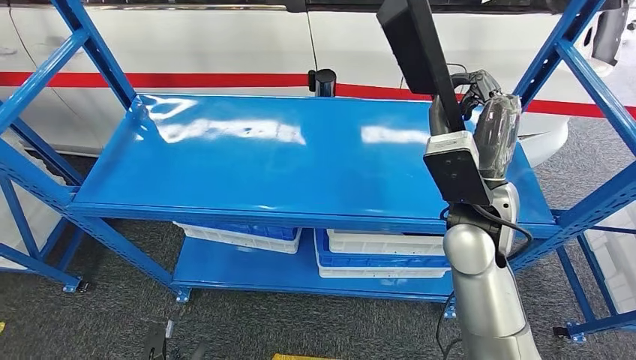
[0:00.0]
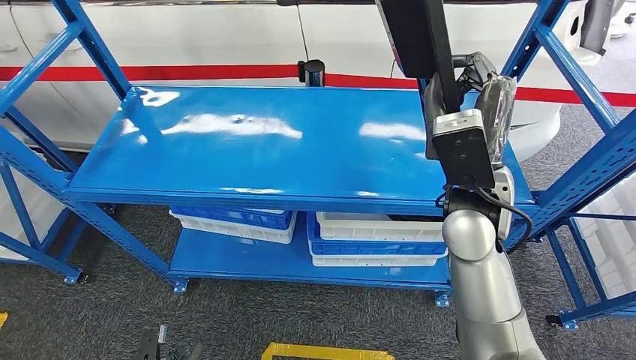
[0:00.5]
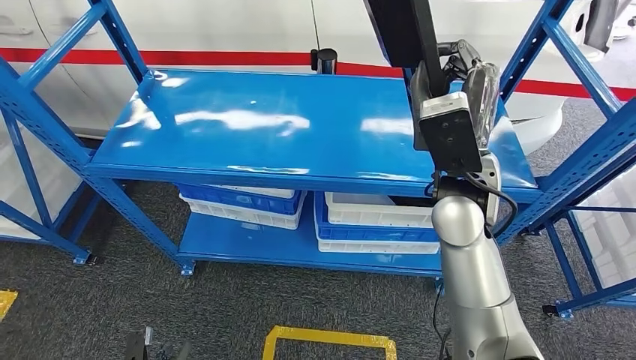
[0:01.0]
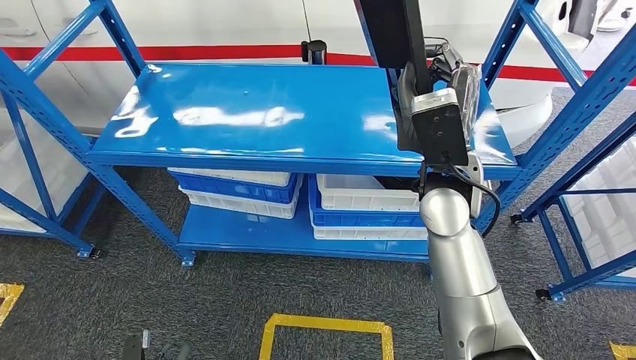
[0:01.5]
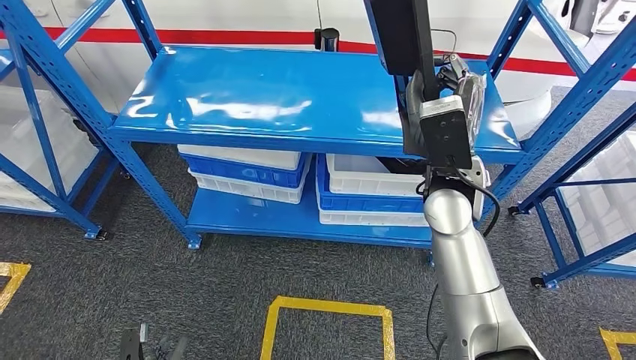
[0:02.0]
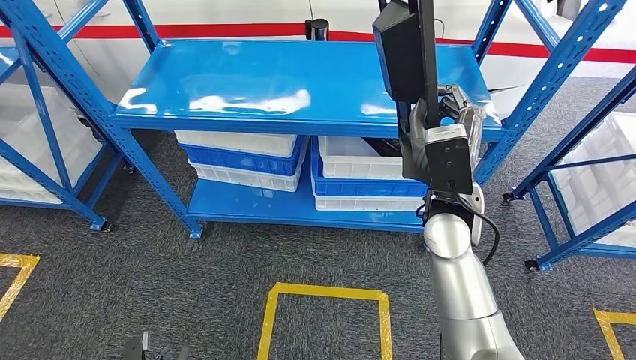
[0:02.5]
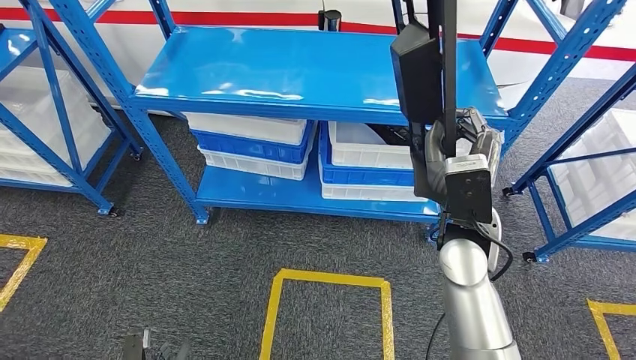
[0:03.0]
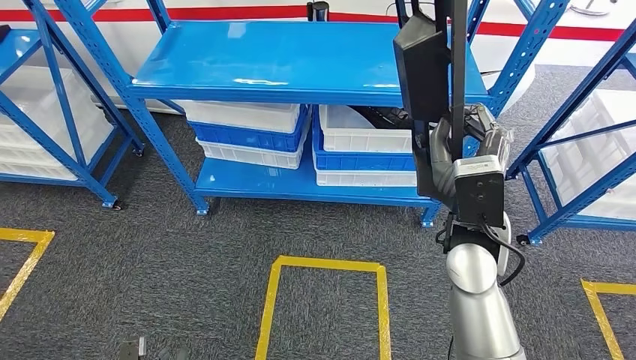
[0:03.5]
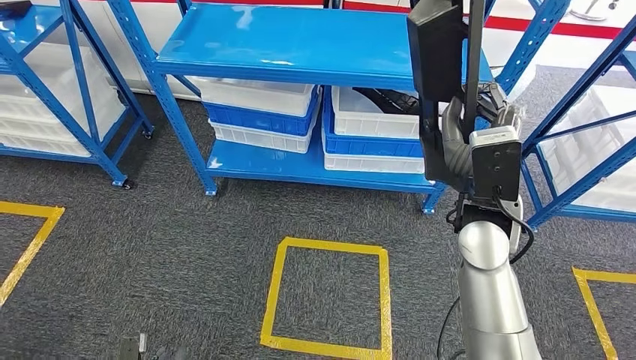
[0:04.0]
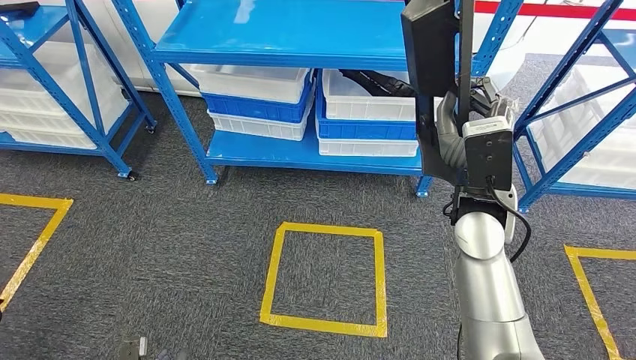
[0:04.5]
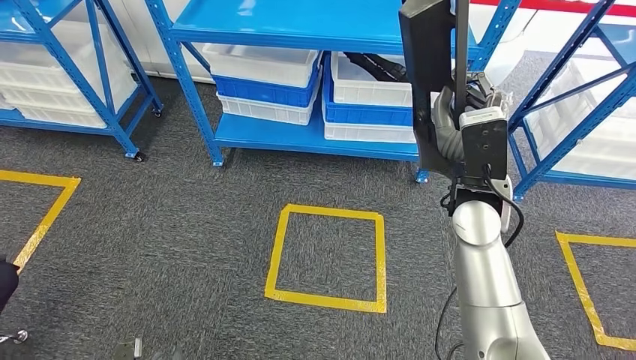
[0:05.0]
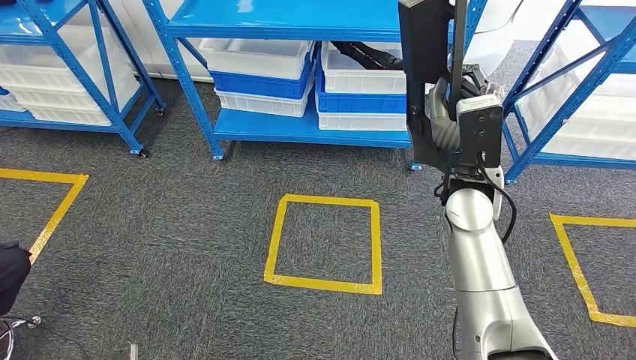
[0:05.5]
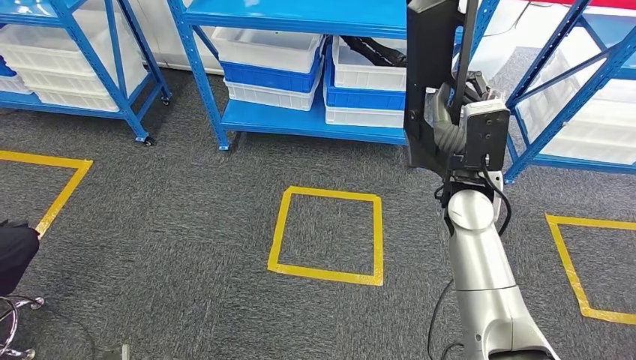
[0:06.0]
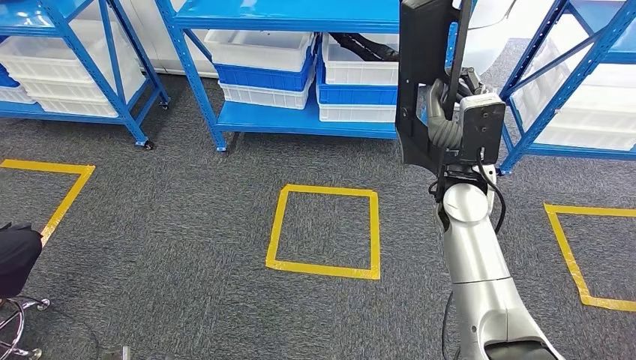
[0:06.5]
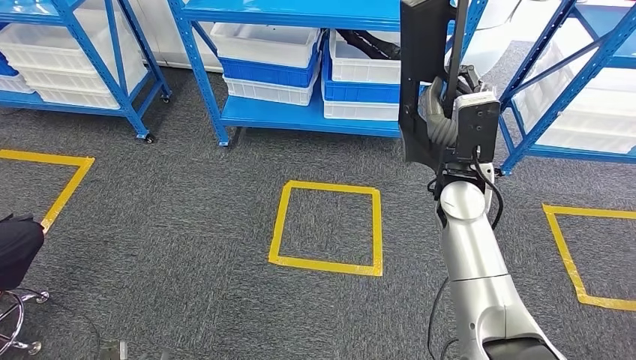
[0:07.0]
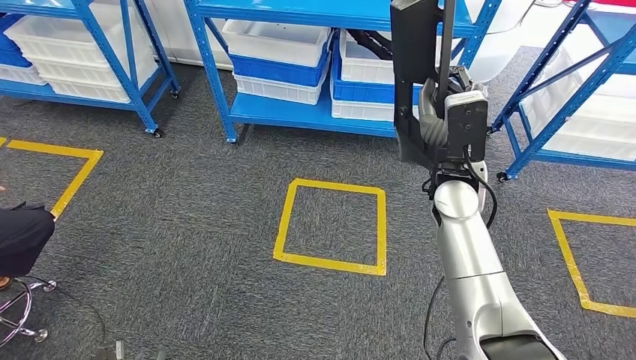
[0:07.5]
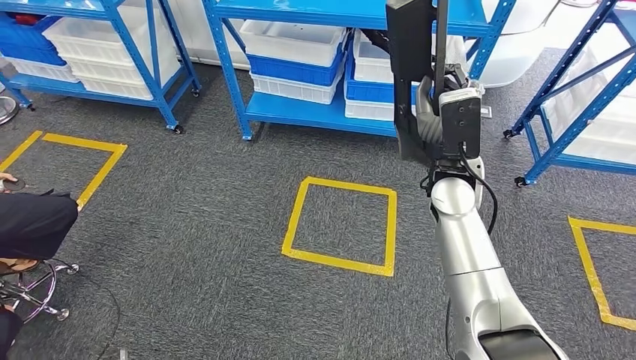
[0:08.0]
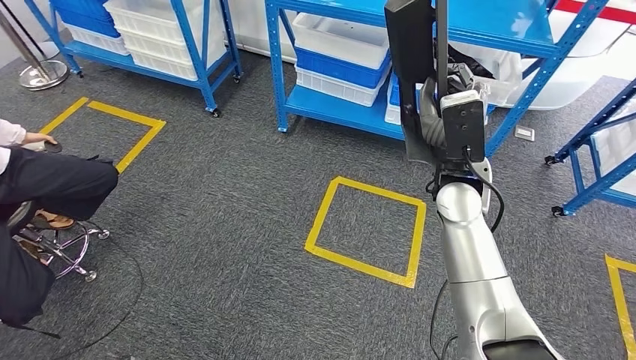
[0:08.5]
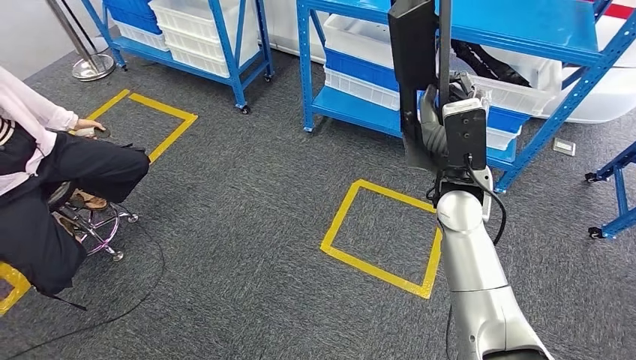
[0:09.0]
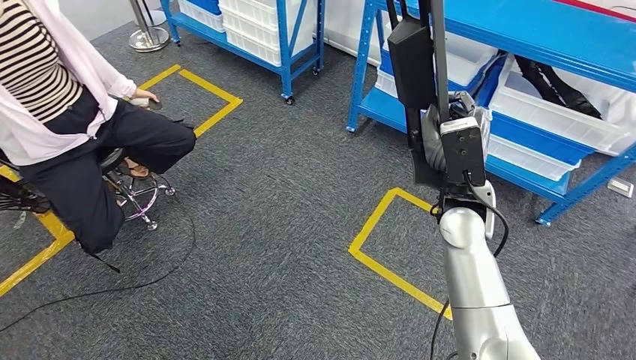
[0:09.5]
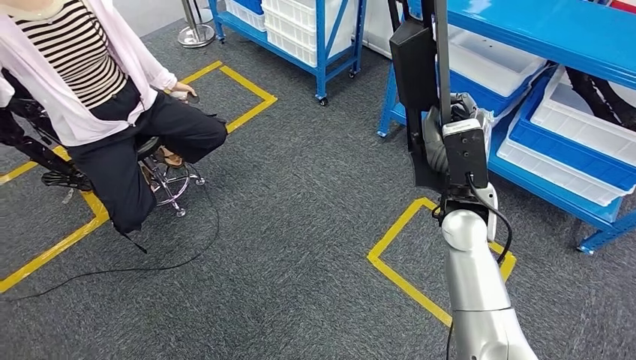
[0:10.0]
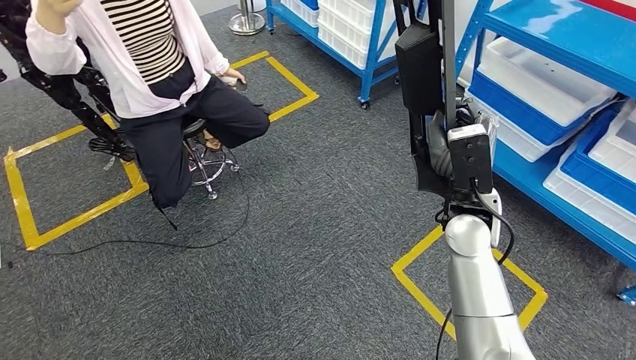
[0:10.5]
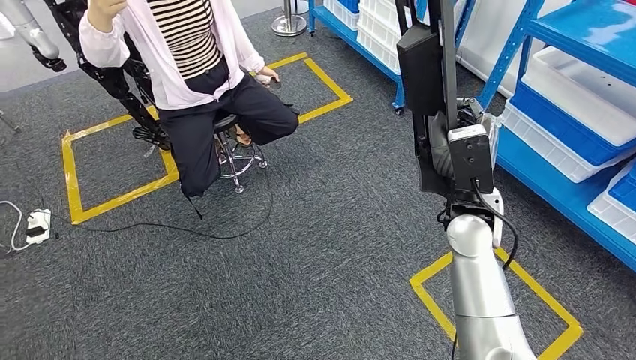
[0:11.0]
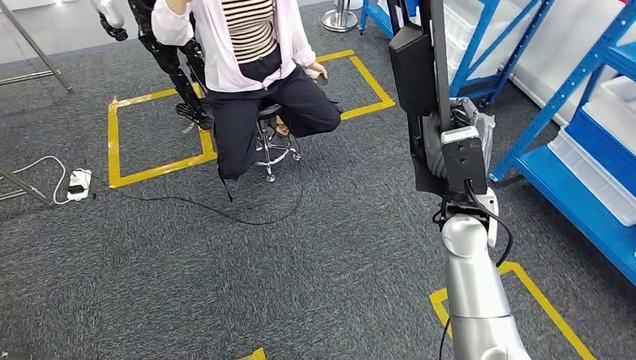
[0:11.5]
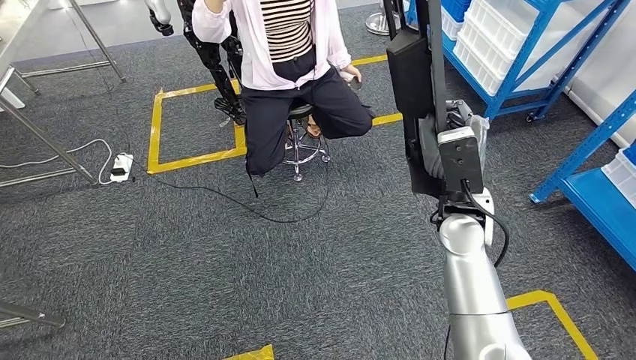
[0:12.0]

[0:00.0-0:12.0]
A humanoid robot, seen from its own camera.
Step, 0:00.0 to 0:04.0: Pick up the large material from the shelf.

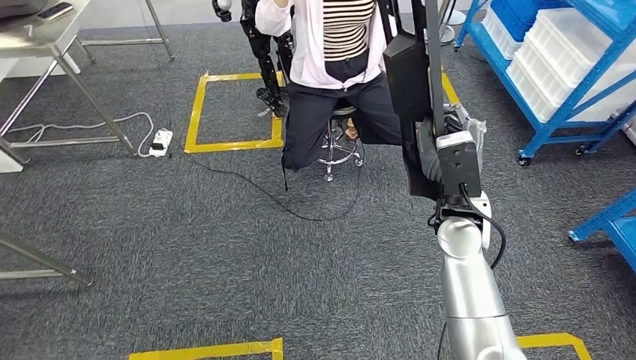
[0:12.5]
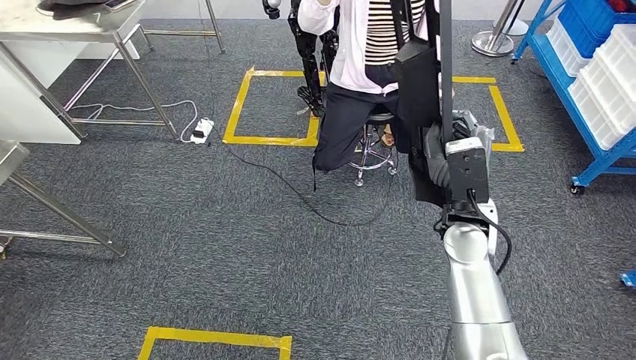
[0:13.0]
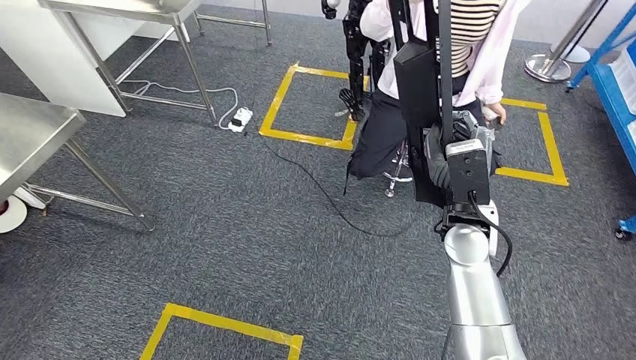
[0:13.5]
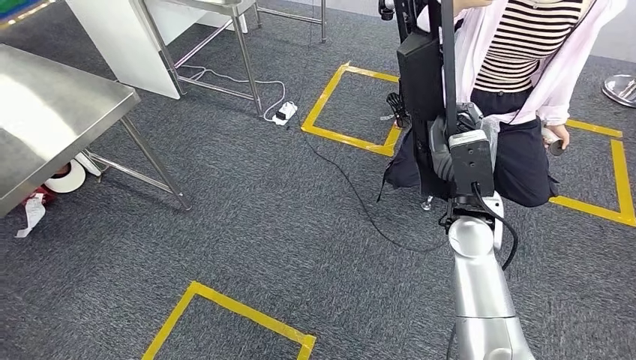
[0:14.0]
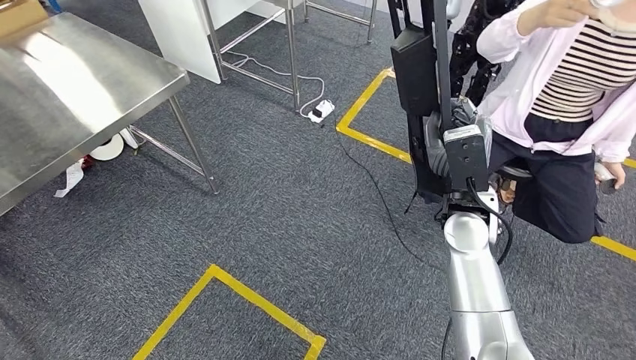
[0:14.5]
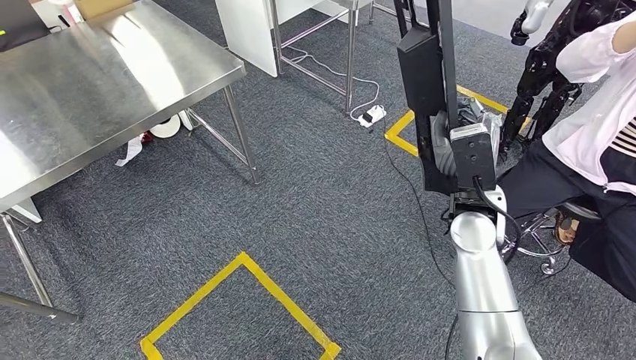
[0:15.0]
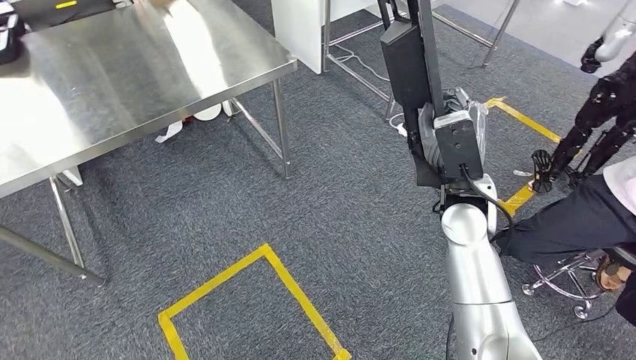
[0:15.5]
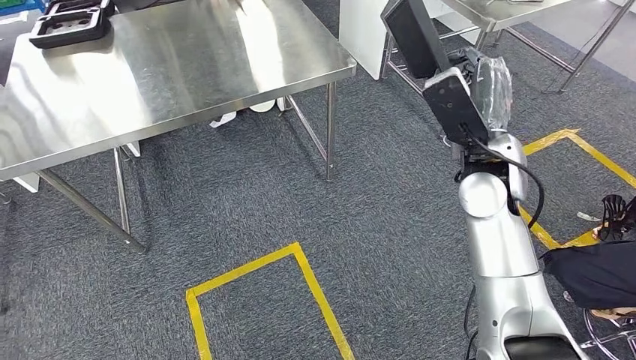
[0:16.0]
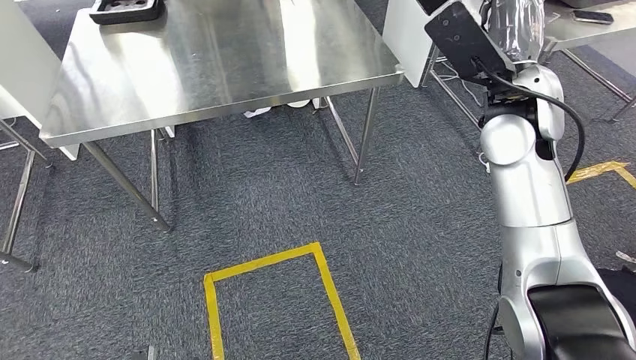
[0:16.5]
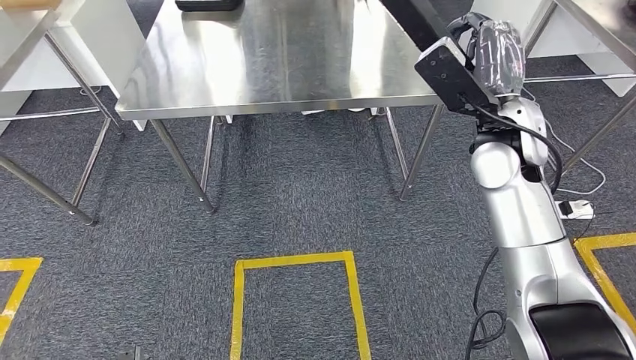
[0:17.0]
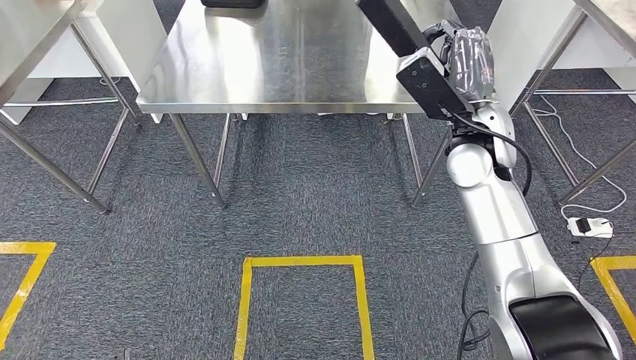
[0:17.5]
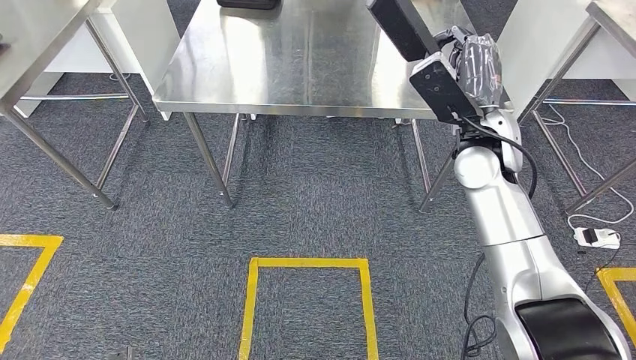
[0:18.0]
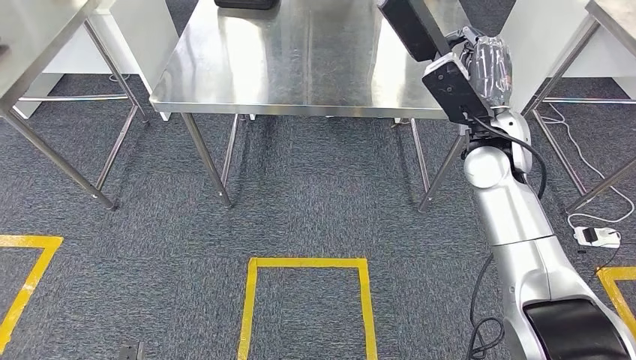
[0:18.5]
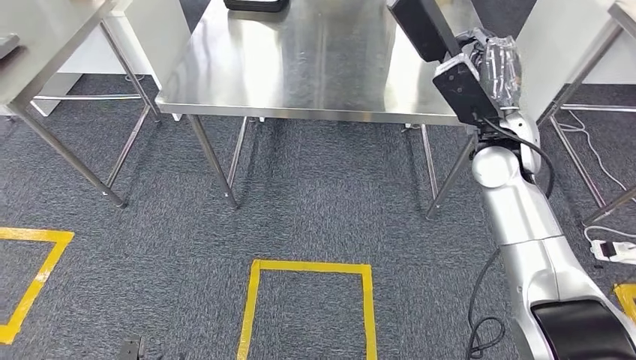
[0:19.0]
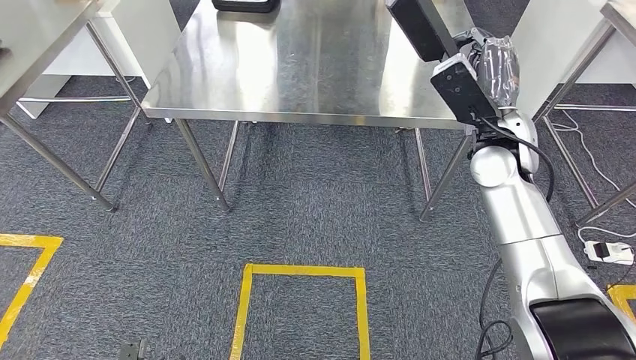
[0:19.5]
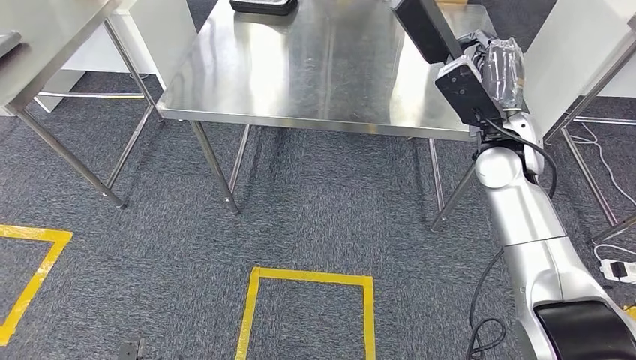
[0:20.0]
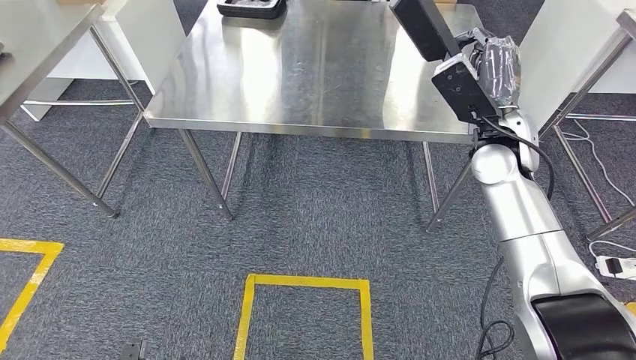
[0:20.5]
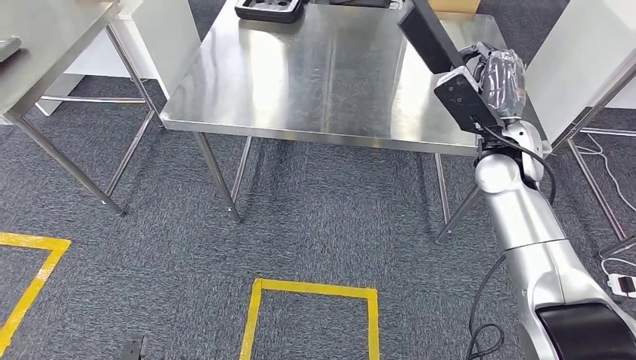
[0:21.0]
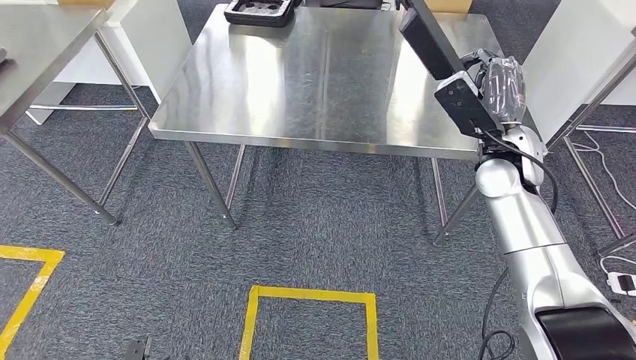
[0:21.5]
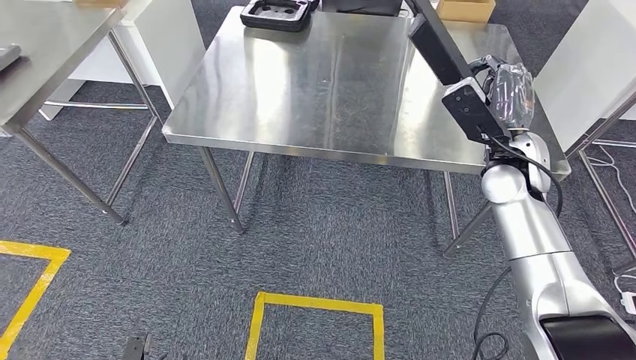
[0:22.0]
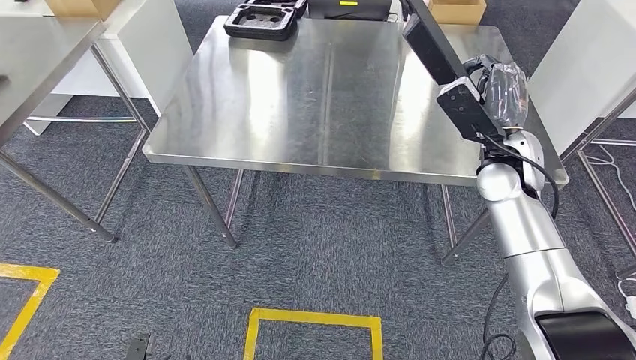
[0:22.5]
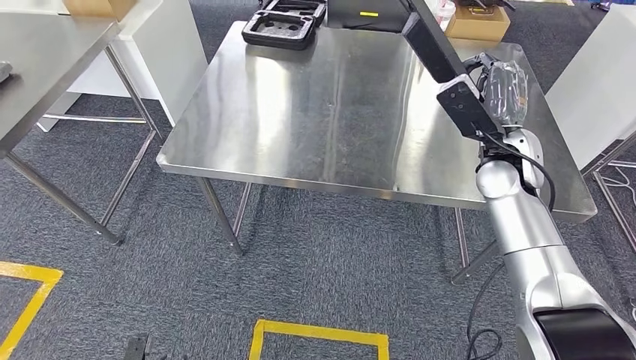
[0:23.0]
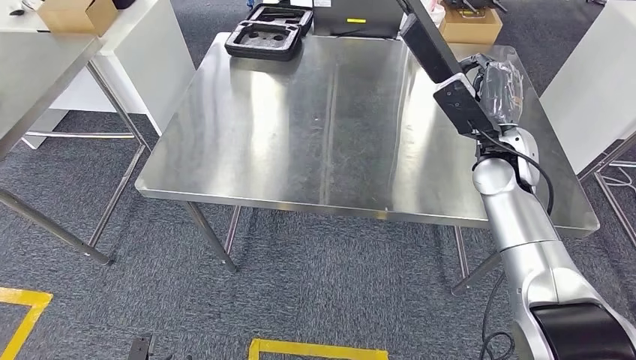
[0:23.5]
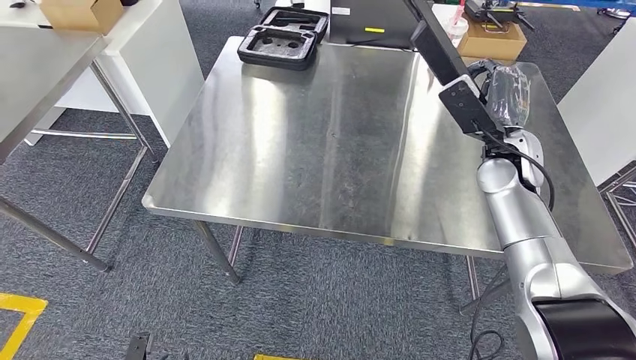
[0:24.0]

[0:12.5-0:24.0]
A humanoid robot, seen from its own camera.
Step, 0:12.5 to 0:19.5: Move the large material to the workbench.
